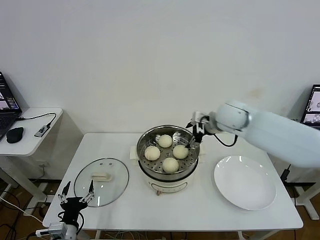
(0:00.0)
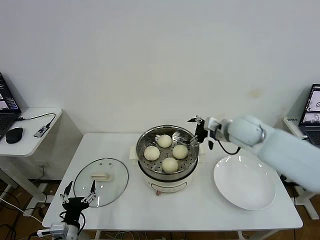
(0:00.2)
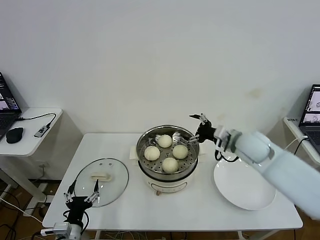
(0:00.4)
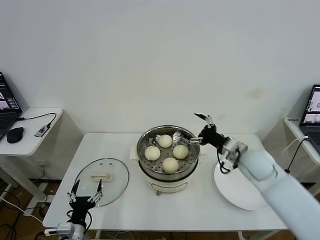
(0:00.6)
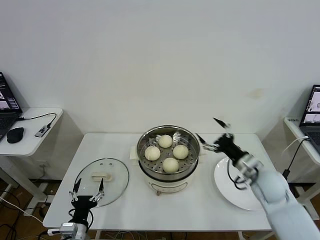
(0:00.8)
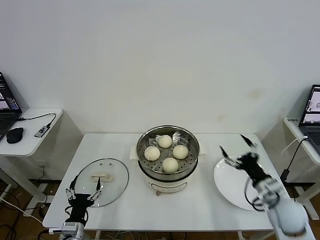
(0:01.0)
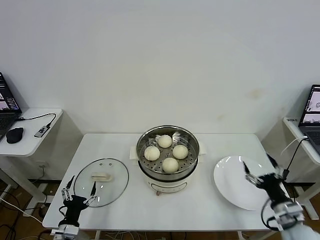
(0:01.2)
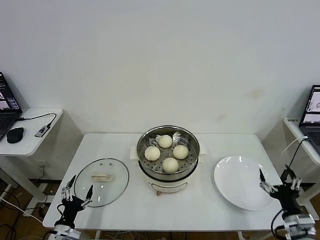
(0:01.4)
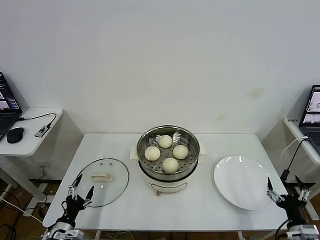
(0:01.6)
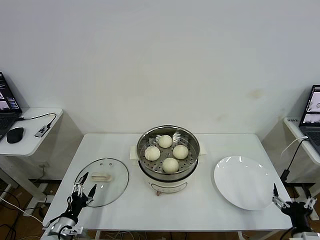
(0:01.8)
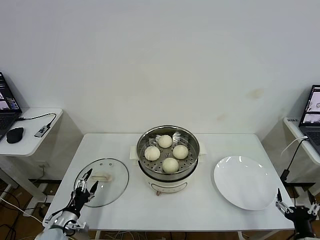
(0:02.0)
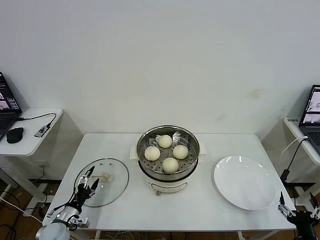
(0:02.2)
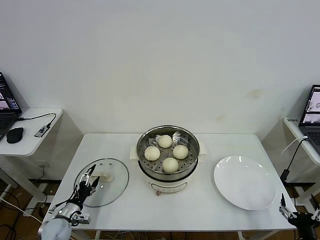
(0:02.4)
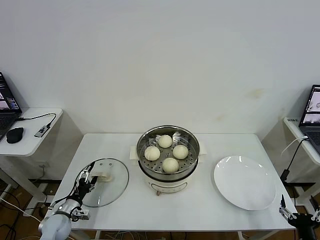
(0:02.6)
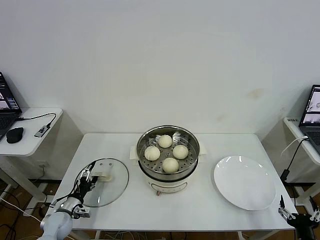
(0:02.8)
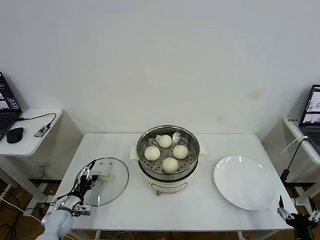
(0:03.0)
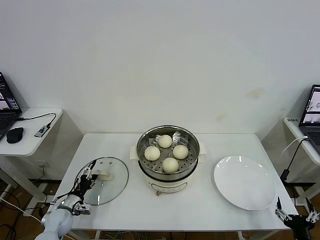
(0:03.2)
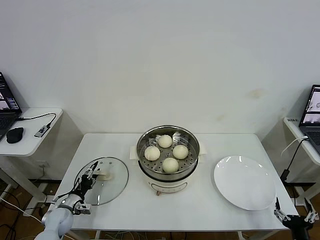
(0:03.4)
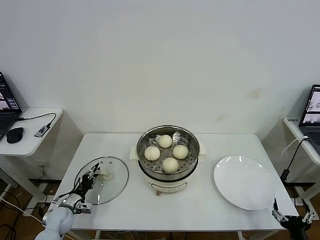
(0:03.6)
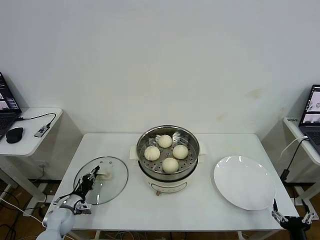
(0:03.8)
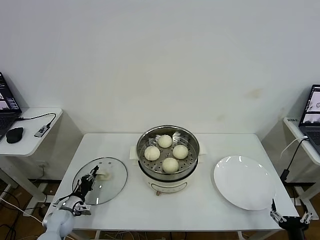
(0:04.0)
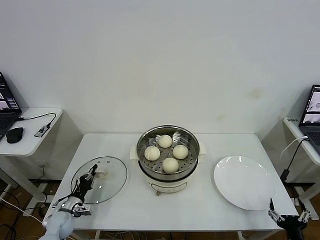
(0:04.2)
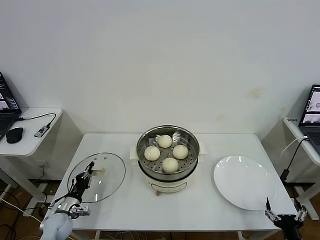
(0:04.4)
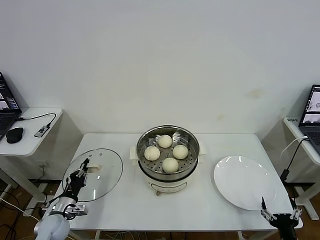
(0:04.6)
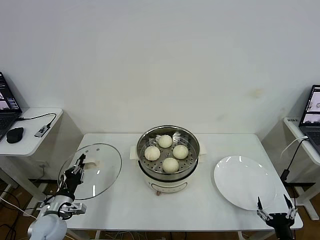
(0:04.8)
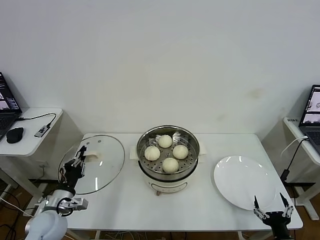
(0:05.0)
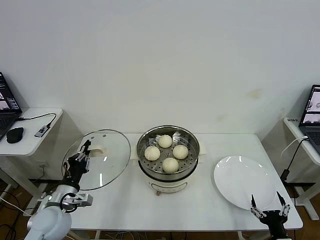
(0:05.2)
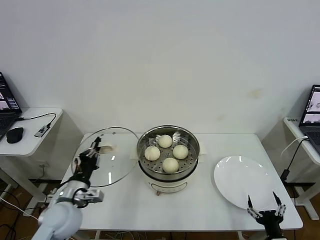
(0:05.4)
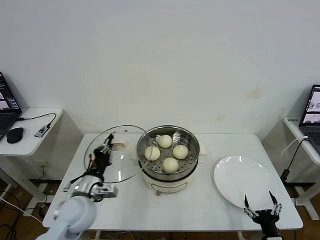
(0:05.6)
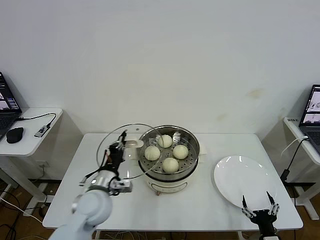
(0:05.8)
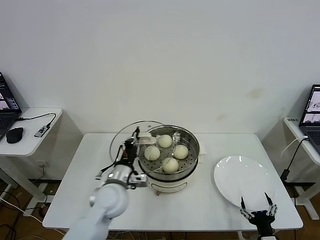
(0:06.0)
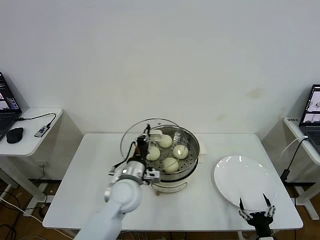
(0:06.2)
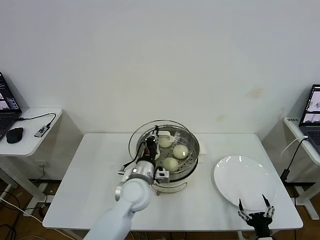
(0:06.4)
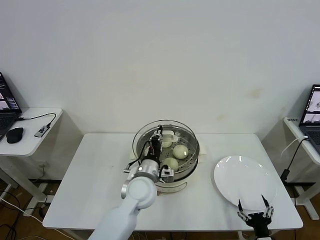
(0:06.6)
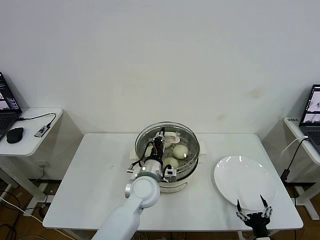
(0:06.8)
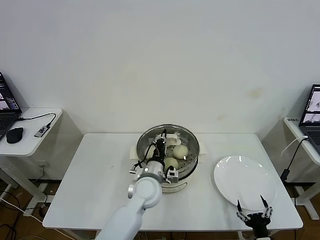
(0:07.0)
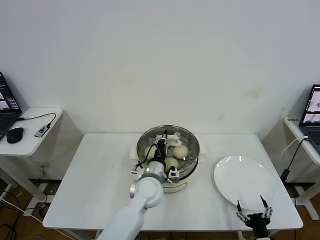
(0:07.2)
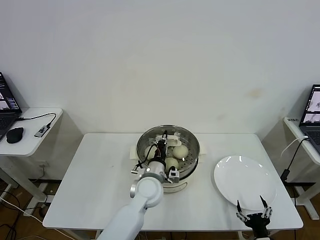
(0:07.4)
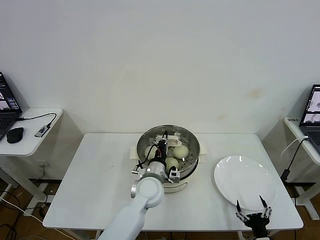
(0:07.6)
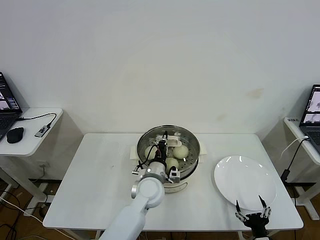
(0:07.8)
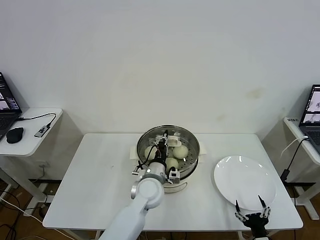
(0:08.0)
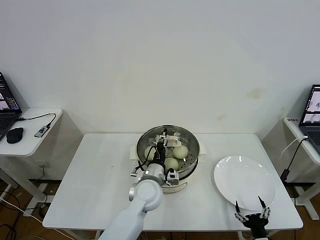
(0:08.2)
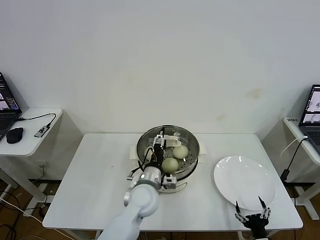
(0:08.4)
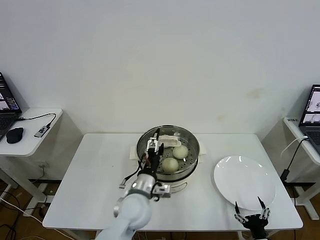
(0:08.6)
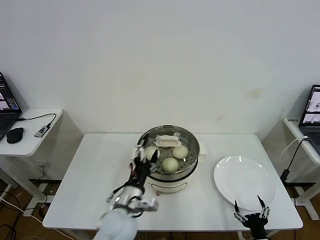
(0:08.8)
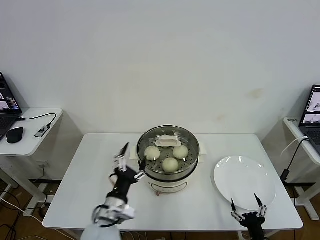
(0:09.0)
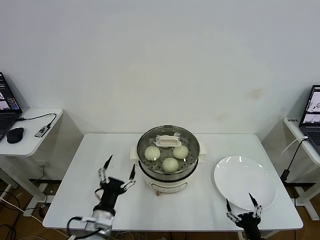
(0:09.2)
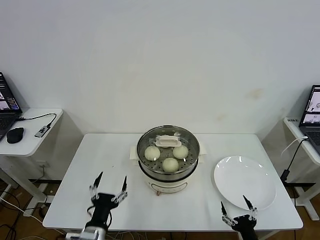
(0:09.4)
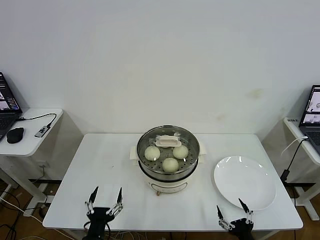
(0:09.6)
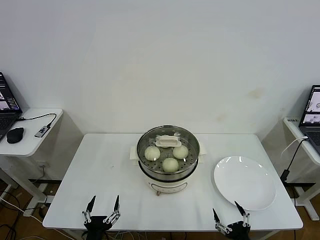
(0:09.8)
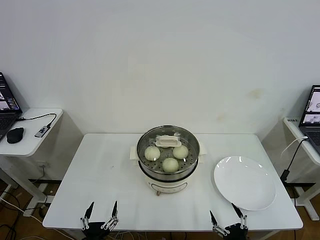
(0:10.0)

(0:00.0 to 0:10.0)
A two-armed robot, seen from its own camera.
Task of the whole recording: take steamed baozi put them in steamer then cover it.
Step, 0:00.0 - 0:03.8: Grasp the pot lid with left gripper.
Step, 0:04.0 - 0:08.2: Place the pot lid on the steamer with left gripper.
0:00.0 - 0:01.4: The left gripper shifts by approximately 5 cm, while the right gripper travels backward, downward and to the right by some 40 cm.
0:01.4 - 0:02.8: The right gripper goes approximately 5 cm backward, while the left gripper shifts some 10 cm forward.
0:02.8 - 0:04.2: The left gripper closes.
0:04.2 - 0:05.8: The right gripper travels to the left by about 5 cm. Meanwhile the left gripper is displaced upward and to the right by roughly 30 cm.
0:05.8 - 0:07.2: The left gripper heads to the right, covering approximately 15 cm.
0:07.2 - 0:08.6: The left gripper changes place by some 5 cm, and opens.
0:08.6 - 0:10.0: The left gripper moves backward, to the left and downward, roughly 30 cm. Meanwhile the right gripper moves approximately 5 cm.

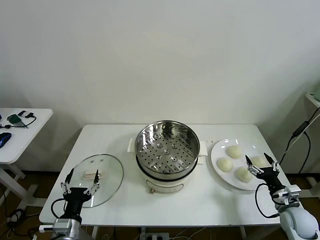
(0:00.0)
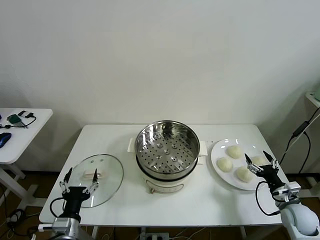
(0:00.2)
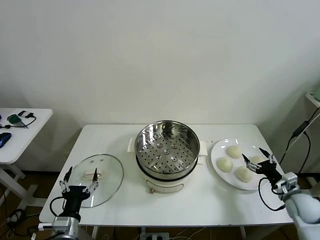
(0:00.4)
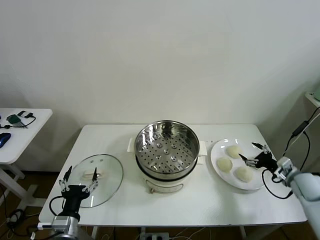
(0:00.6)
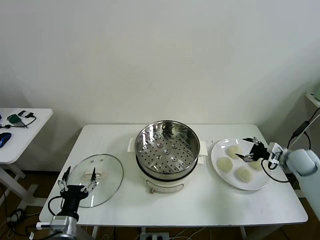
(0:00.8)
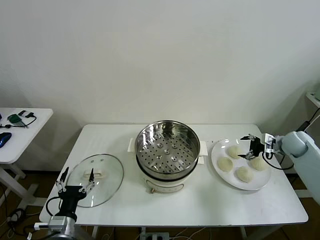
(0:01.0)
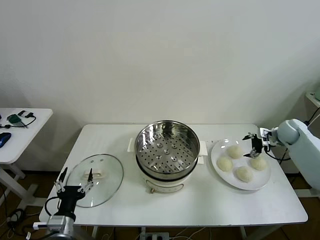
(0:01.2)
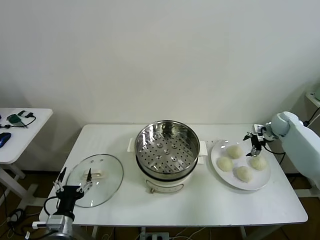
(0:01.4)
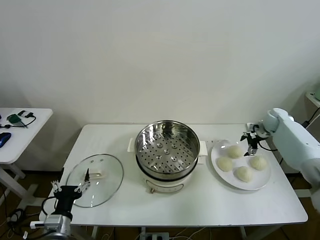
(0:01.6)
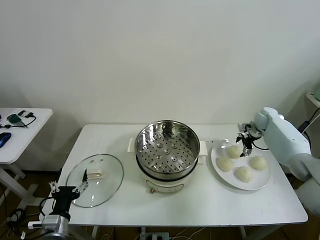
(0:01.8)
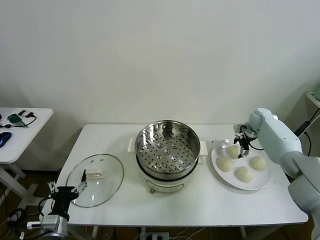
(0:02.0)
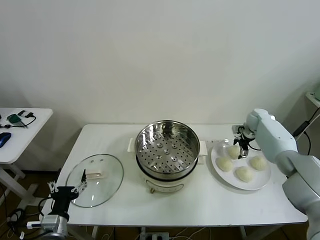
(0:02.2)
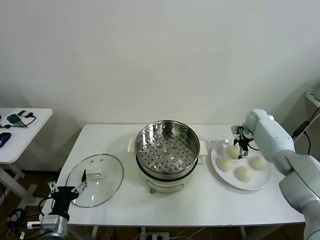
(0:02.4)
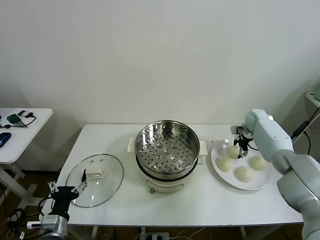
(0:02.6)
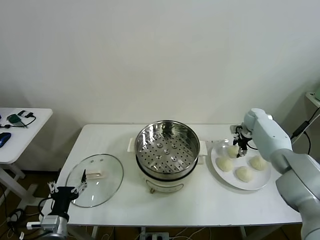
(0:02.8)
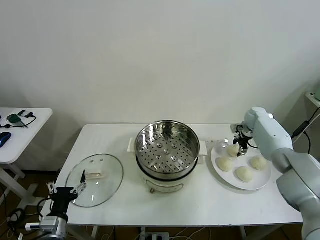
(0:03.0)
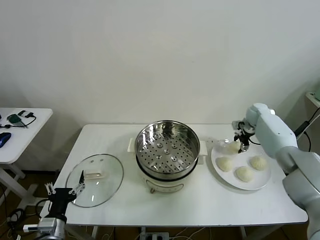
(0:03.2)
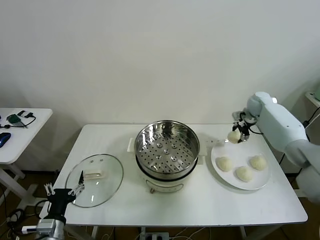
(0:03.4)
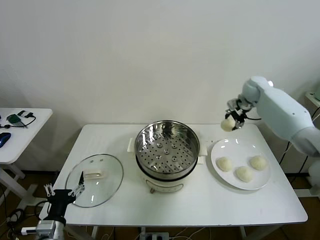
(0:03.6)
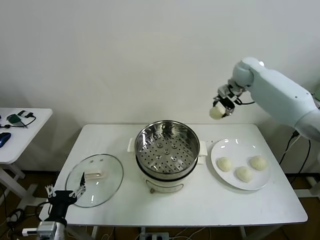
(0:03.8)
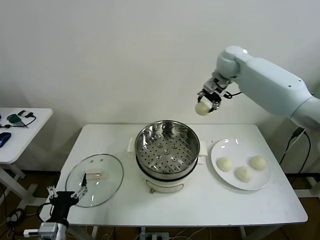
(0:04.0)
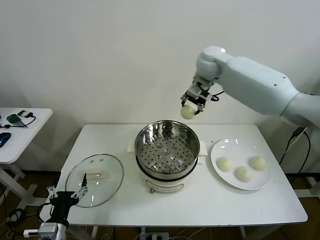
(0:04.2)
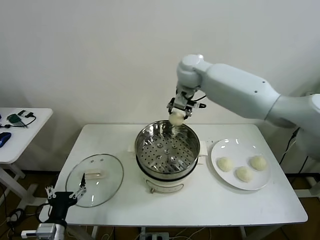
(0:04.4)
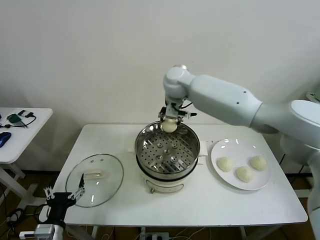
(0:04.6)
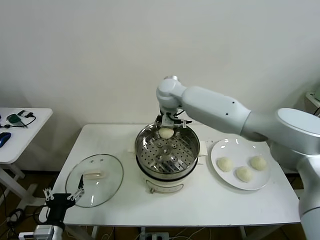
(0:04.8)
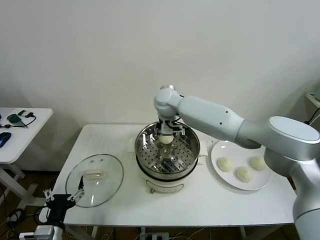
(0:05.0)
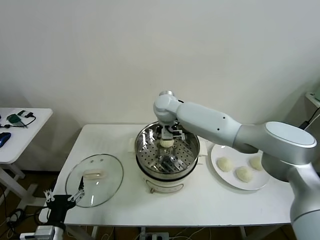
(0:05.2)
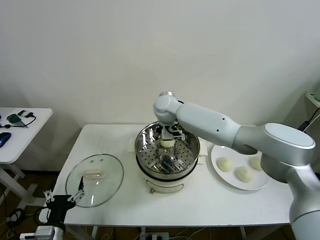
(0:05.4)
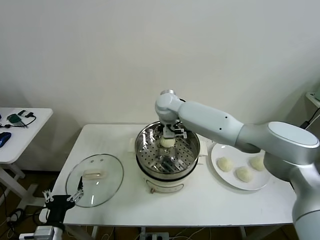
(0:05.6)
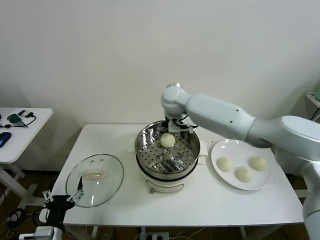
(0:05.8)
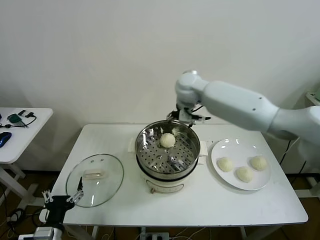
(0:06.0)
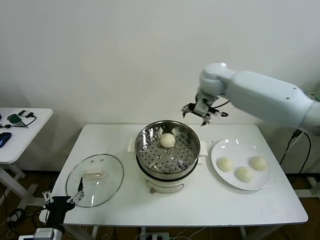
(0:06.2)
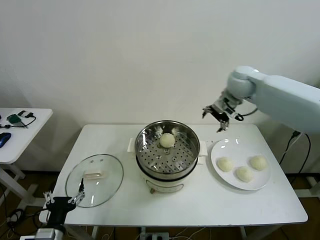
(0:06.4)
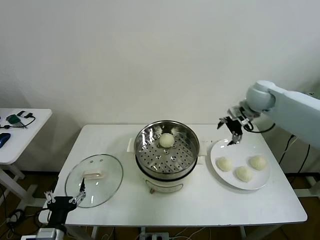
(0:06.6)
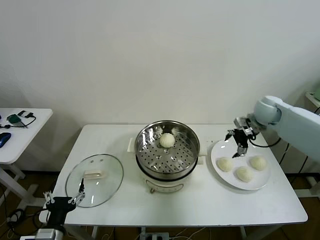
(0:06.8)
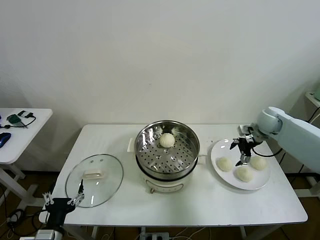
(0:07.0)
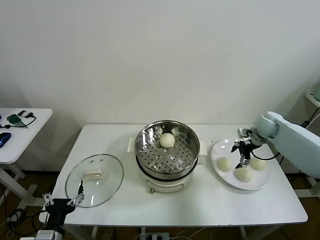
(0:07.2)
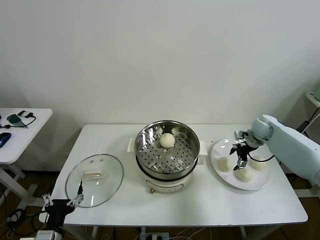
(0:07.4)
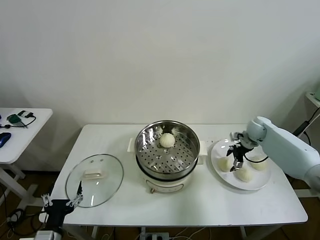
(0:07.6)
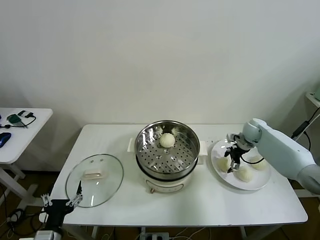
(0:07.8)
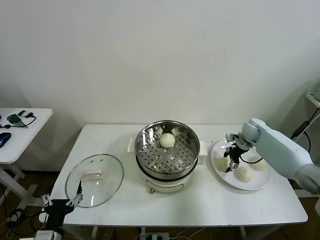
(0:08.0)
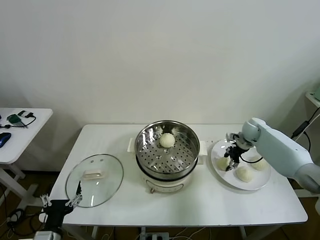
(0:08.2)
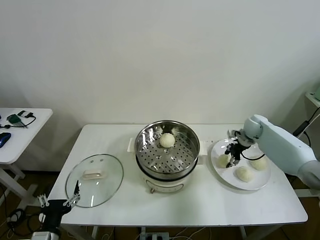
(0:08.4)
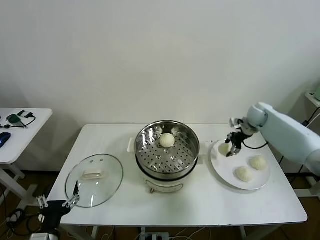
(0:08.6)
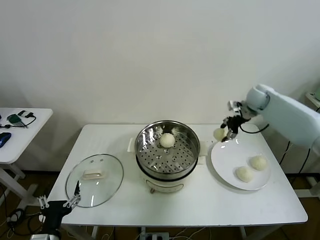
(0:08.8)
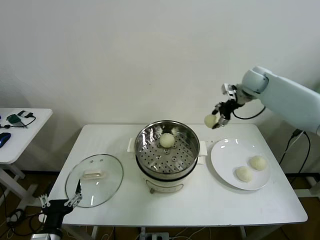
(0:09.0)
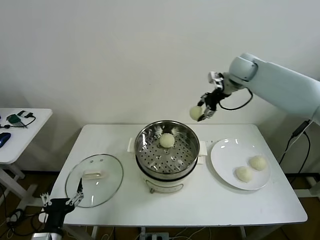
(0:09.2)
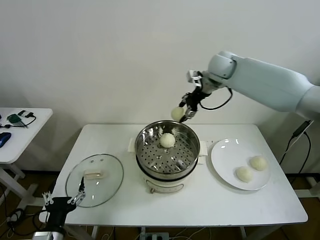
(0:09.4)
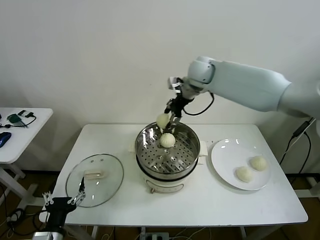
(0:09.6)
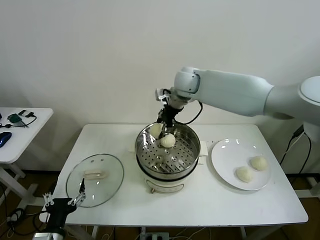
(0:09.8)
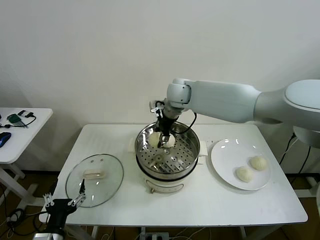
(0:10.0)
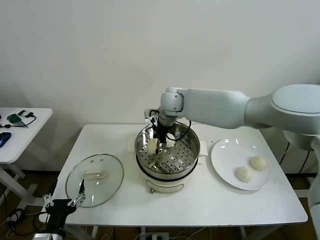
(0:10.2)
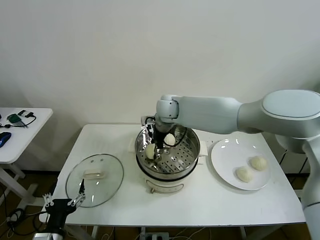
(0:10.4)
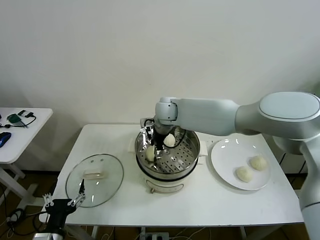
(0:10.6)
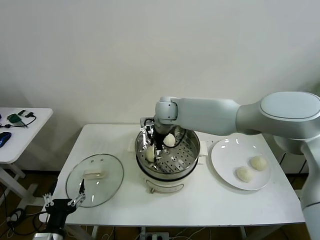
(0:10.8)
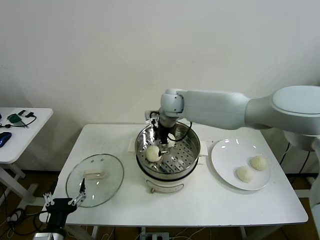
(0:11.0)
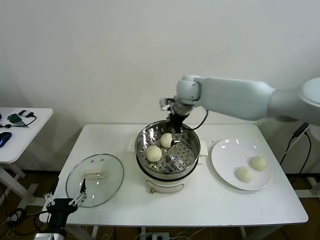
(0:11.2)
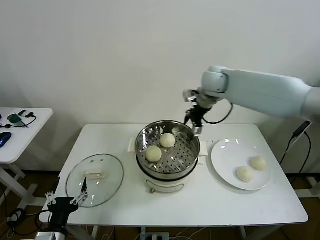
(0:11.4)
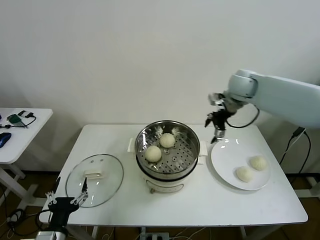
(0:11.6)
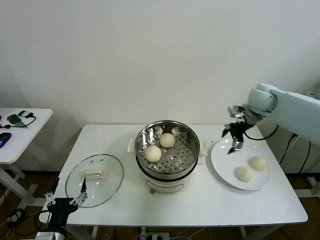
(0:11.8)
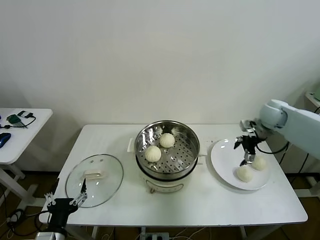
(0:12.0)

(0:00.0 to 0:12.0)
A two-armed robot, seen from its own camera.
Task of the whole recording: take steamed baozi put them in steamer then cover it.
Step, 0:00.0 - 0:02.8: Grasp the baozi in the plate with right gripper.
Step, 0:03.2 - 0:05.6: Place the baozi on the steamer with right gripper.
Step, 0:05.8 - 0:08.2: Grasp the baozi in the plate with right gripper.
Step, 0:08.4 - 0:10.8: Place the baozi on the steamer with right gripper.
0:01.6 - 0:03.0: The right gripper closes its fingers.
0:03.0 - 0:04.4: The right gripper moves to the left and upward, some 40 cm.
0:04.4 - 0:06.0: The right gripper is displaced to the right by roughly 10 cm, and opens.
0:06.0 - 0:07.6: The right gripper moves downward and to the right, about 35 cm.
0:07.6 - 0:09.0: The right gripper shifts some 25 cm upward, and closes its fingers.
0:09.0 - 0:10.4: The right gripper moves to the left and downward, approximately 30 cm.
0:10.4 - 0:12.0: The right gripper heads to the right, covering roughly 40 cm, and opens its fingers.
